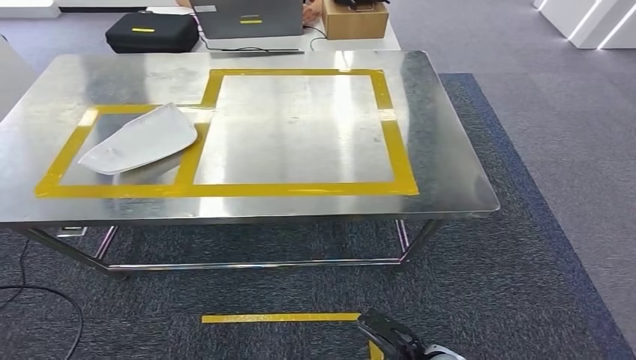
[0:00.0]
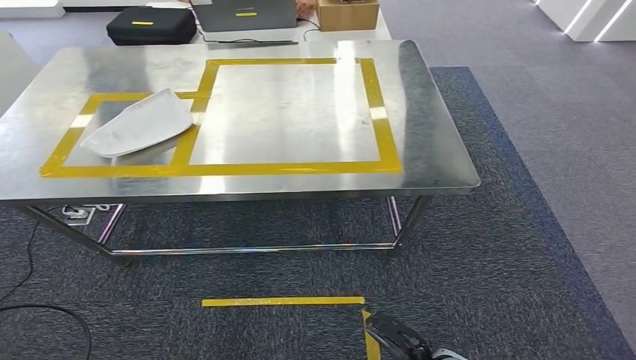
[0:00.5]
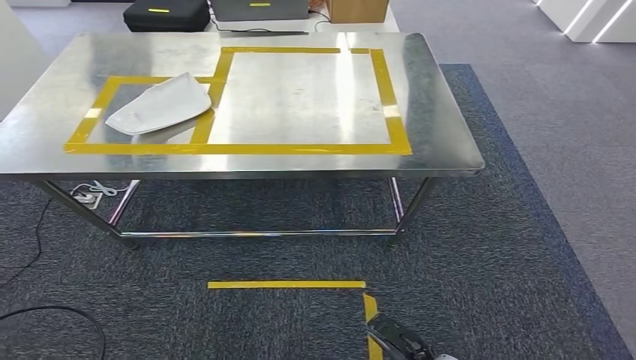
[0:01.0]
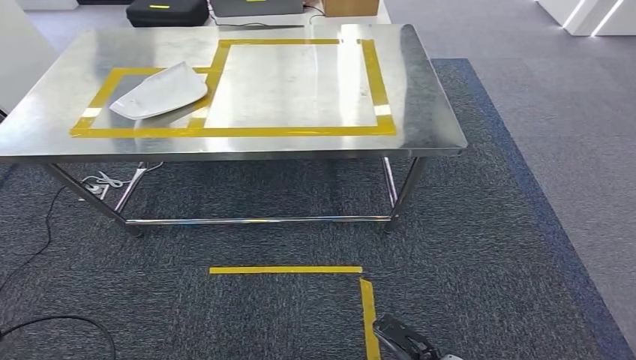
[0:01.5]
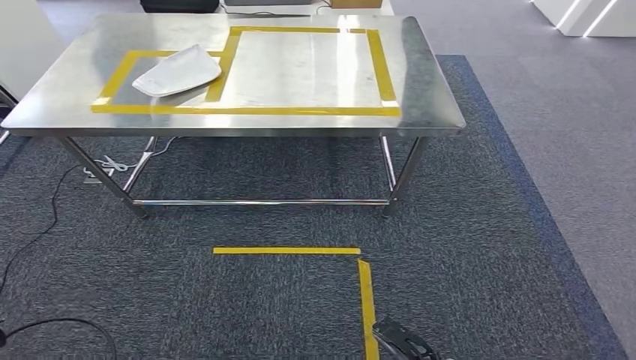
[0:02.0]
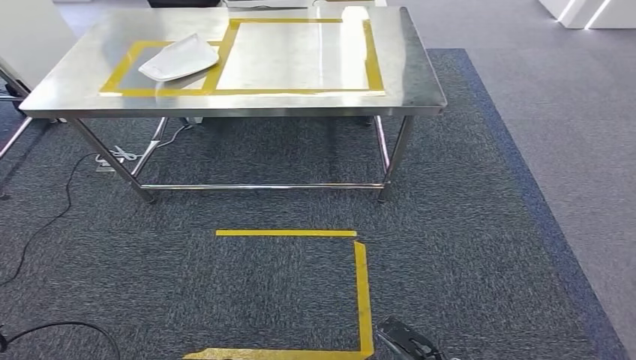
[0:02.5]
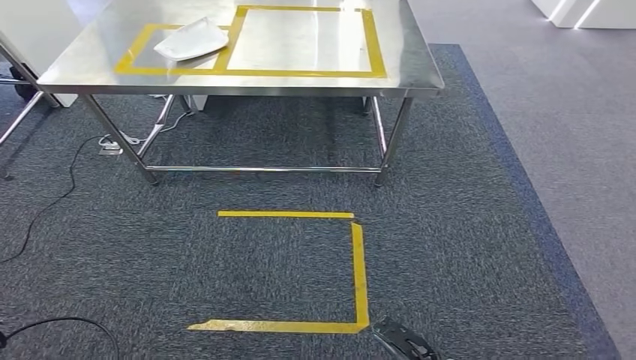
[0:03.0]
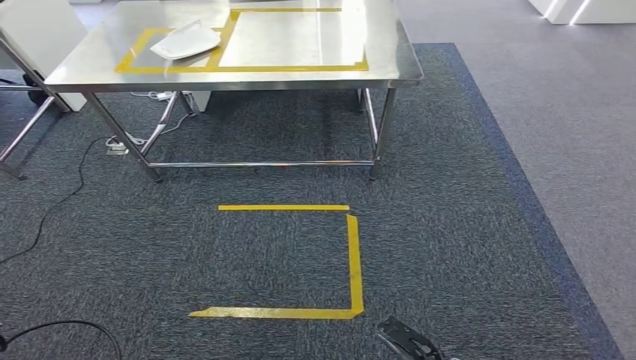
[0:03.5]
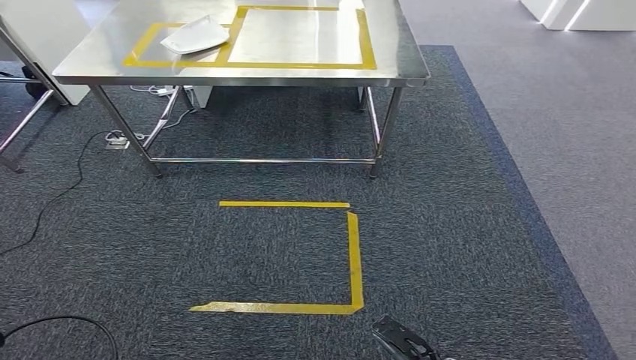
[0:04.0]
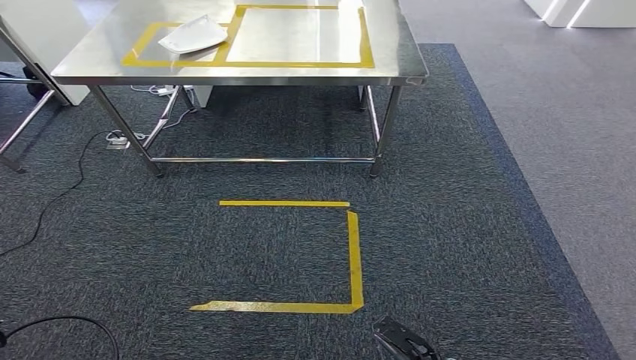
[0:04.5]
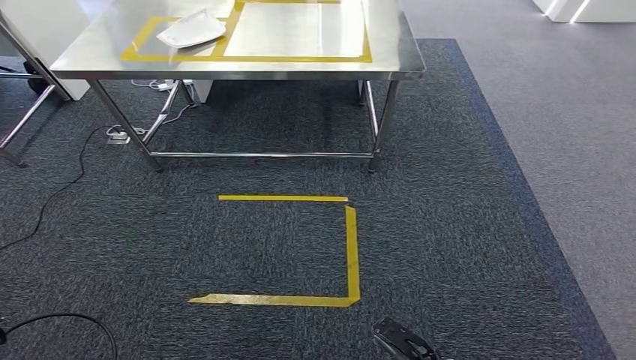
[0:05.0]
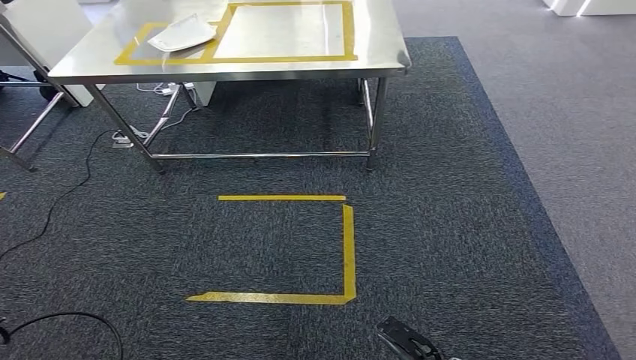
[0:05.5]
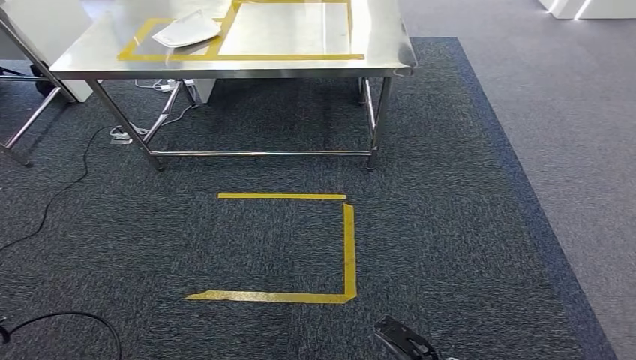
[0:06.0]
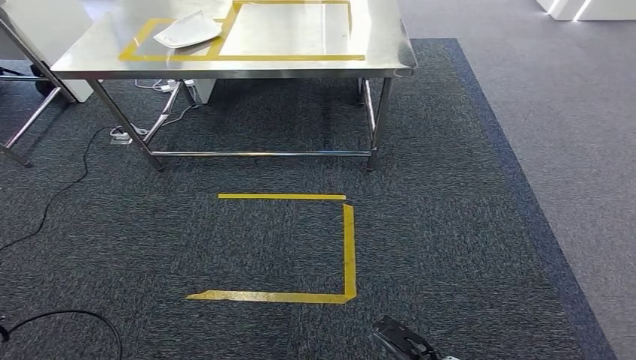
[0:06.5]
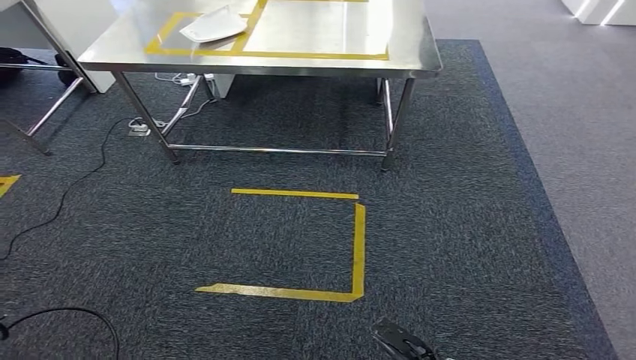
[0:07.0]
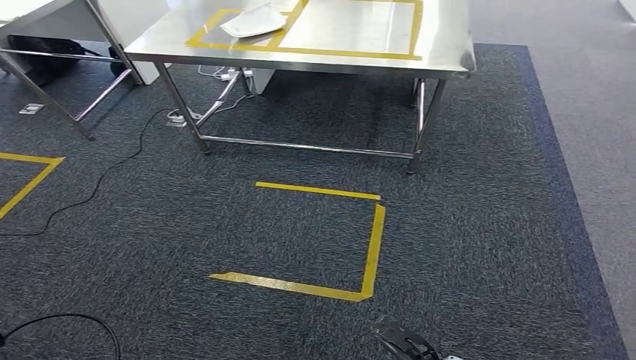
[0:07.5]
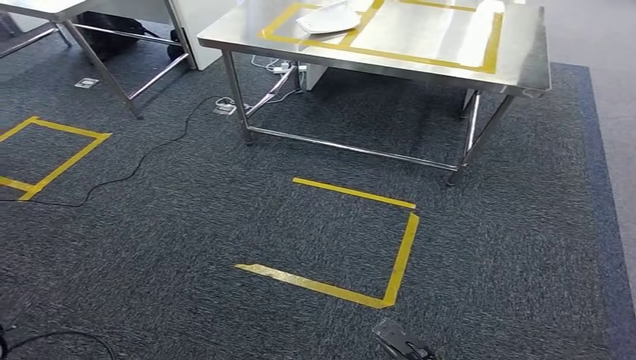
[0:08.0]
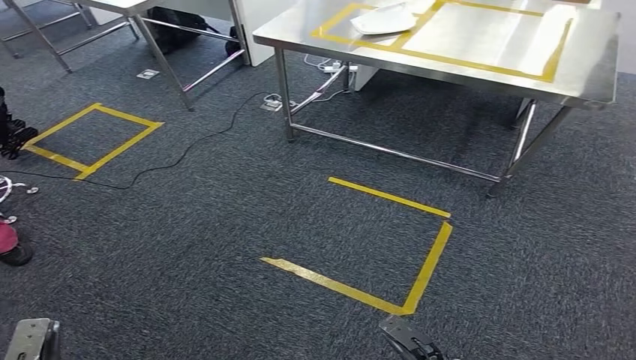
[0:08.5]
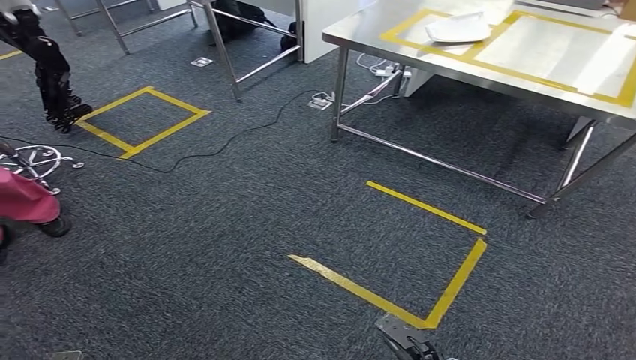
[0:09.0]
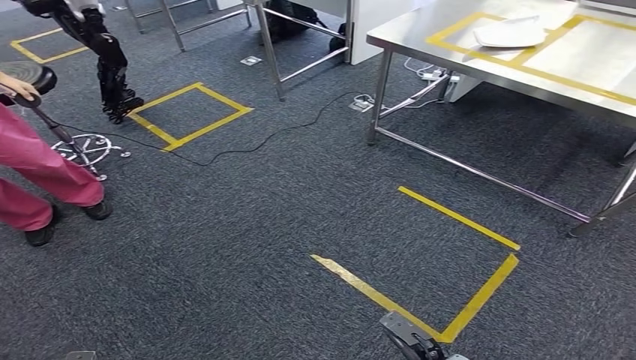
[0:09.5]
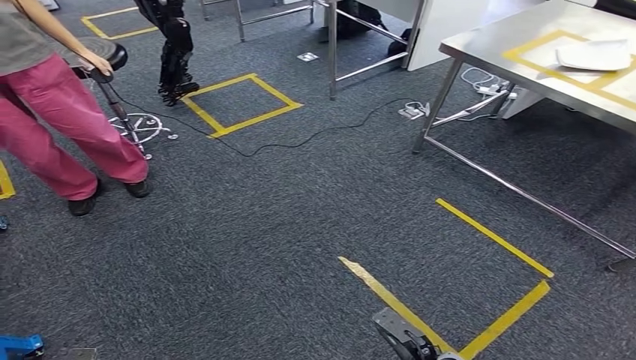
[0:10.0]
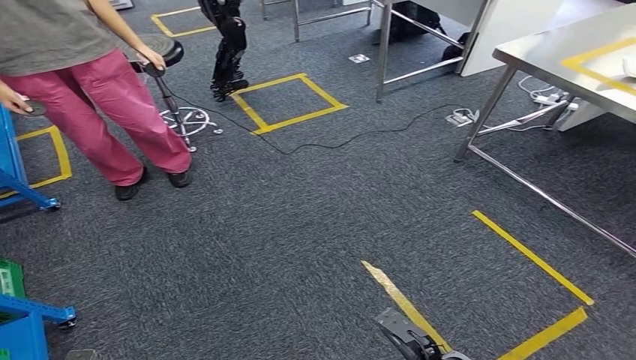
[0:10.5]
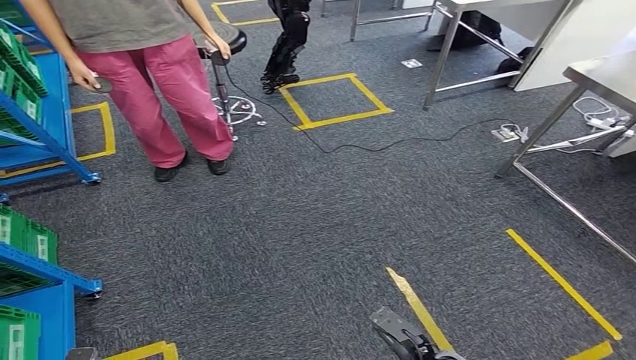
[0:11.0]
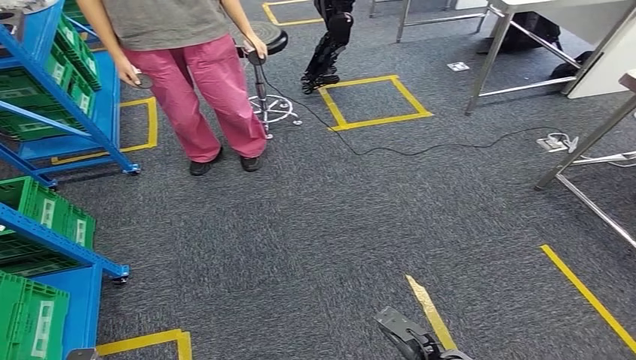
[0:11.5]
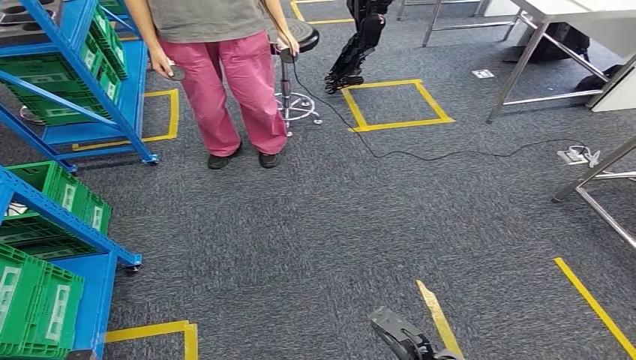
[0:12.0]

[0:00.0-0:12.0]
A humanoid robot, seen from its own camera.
0:04.0 to 0:06.0: Neither hand changes place.

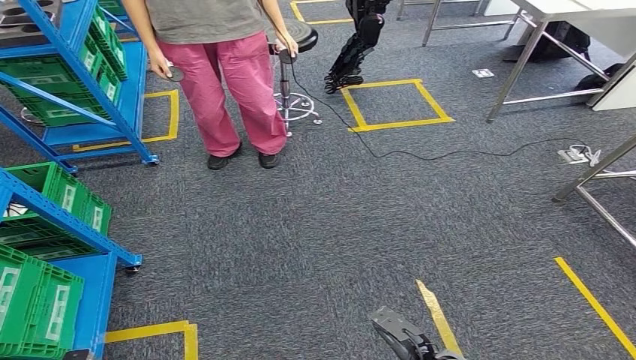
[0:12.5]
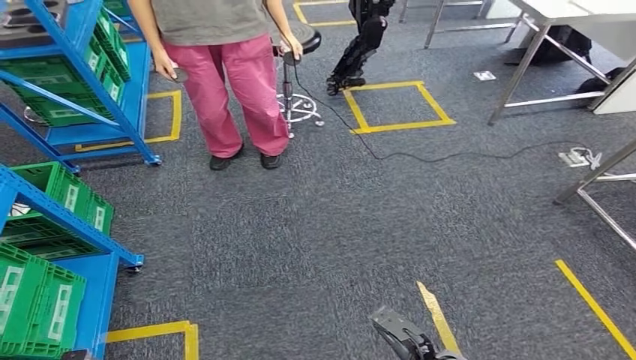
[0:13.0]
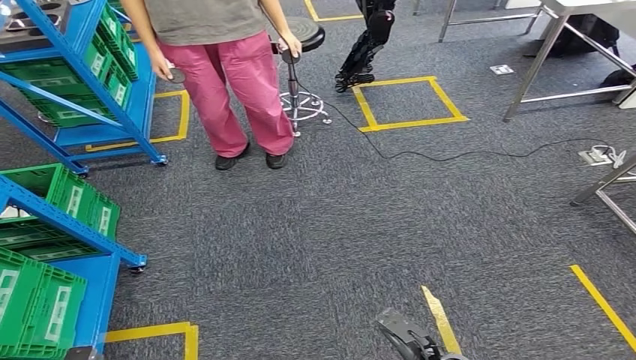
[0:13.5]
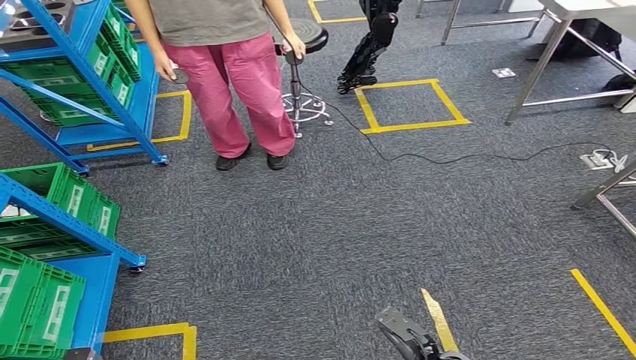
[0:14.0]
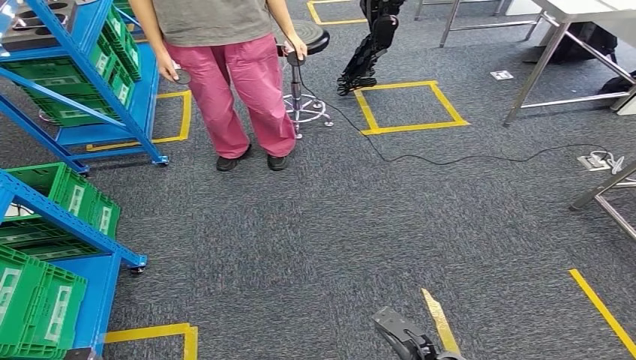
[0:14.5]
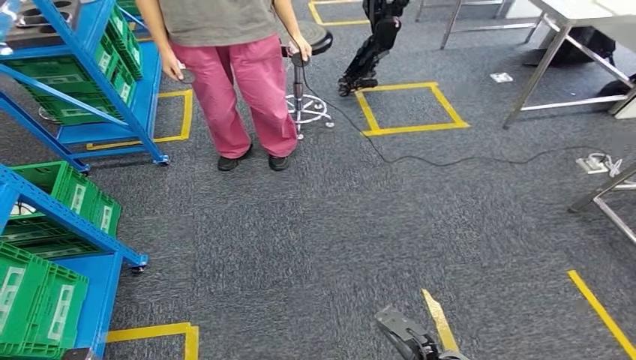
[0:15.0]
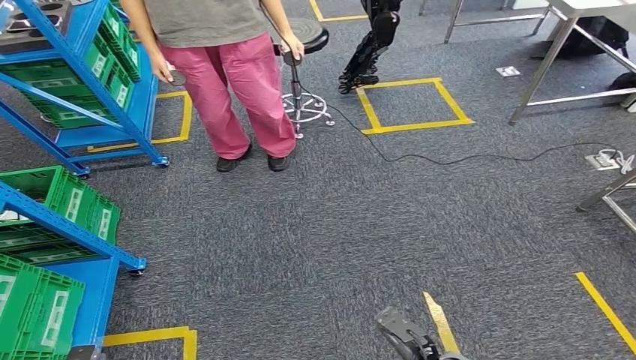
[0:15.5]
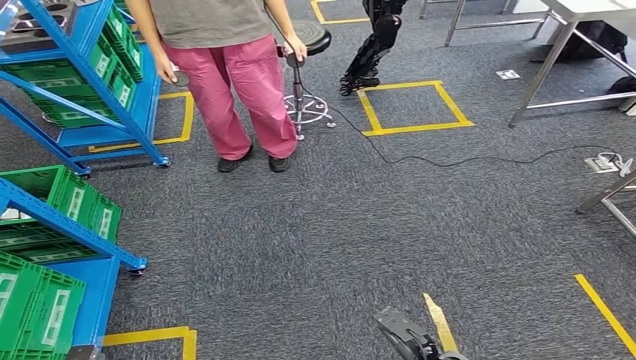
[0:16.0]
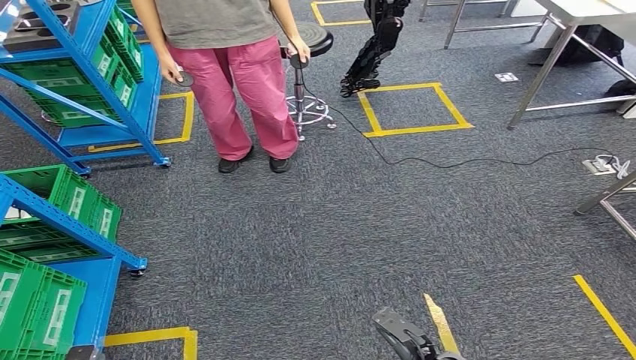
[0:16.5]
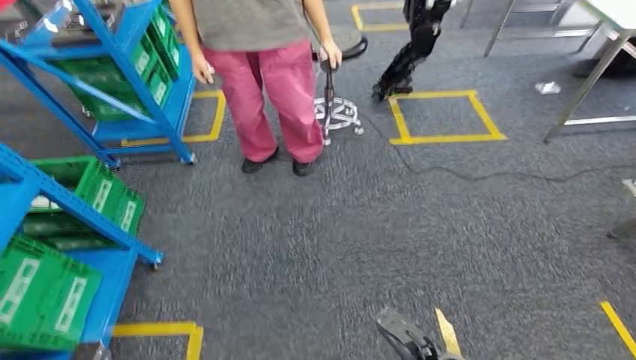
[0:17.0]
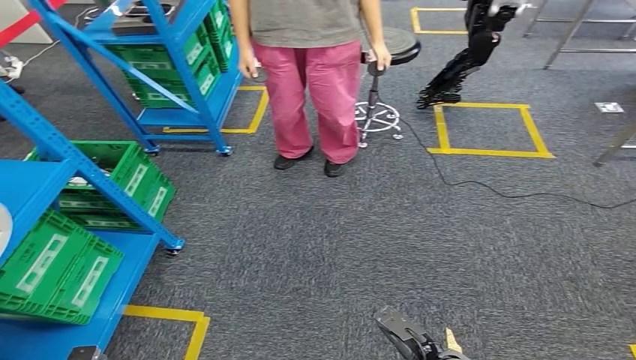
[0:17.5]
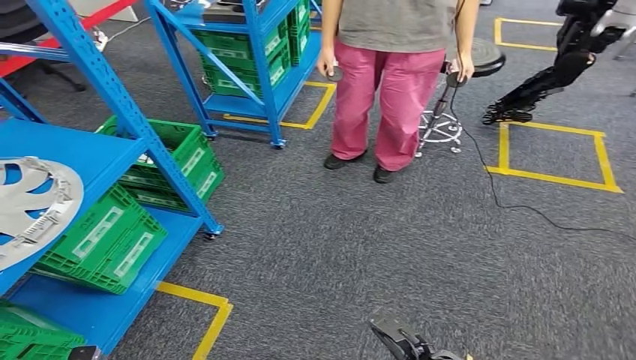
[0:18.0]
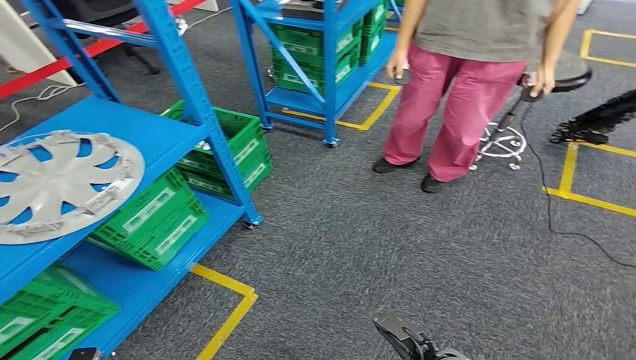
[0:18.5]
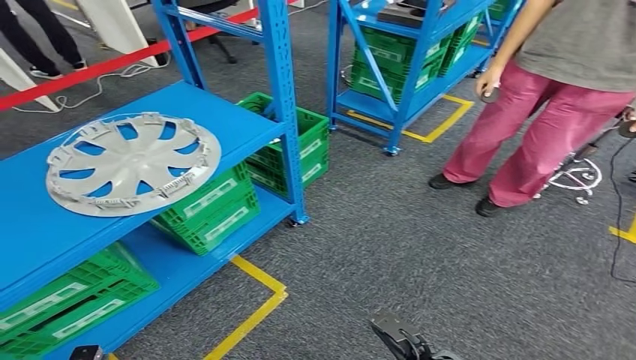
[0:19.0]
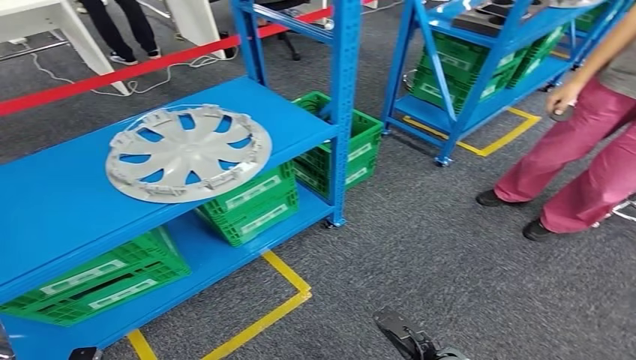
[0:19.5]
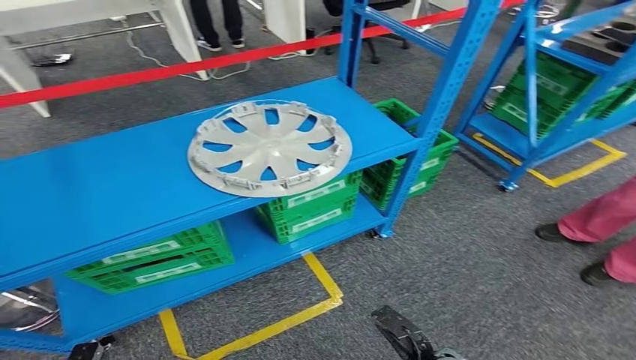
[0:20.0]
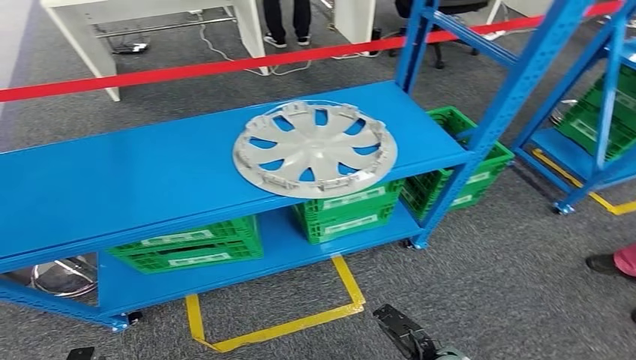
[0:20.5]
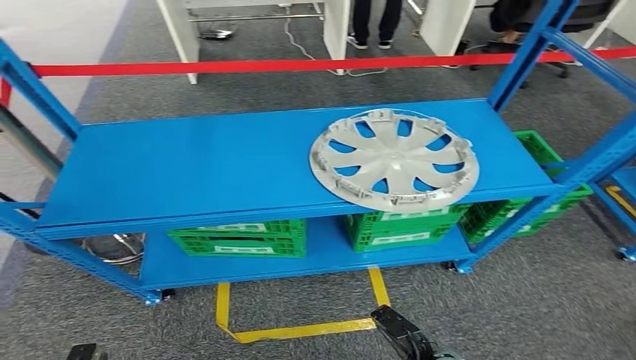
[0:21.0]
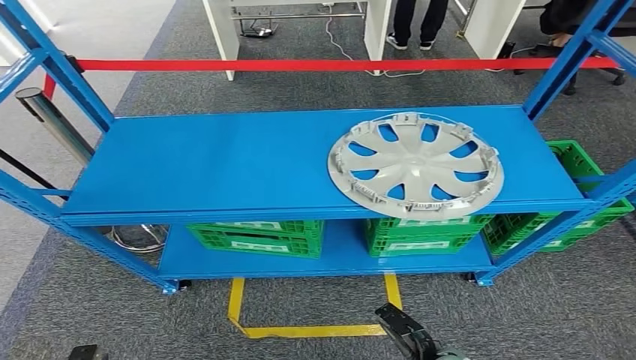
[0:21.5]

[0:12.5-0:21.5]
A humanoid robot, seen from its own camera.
Step, 0:12.5 to 0:21.5: Return to the initial position at the workbench.
